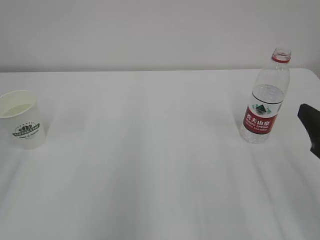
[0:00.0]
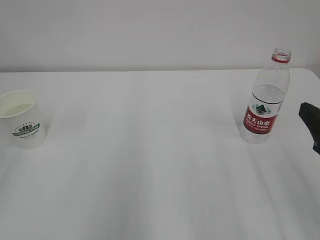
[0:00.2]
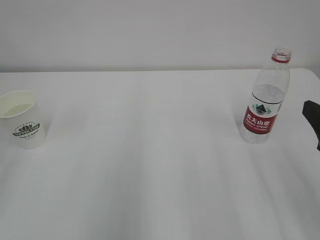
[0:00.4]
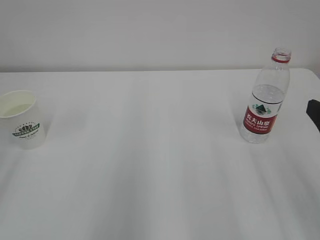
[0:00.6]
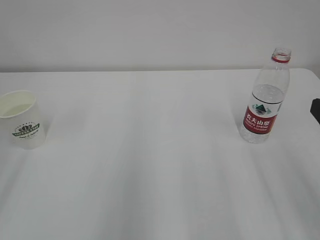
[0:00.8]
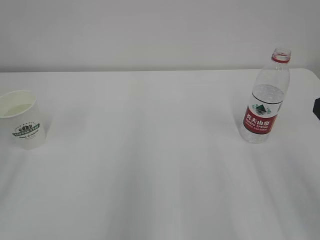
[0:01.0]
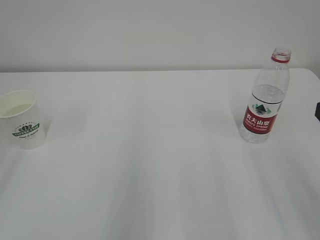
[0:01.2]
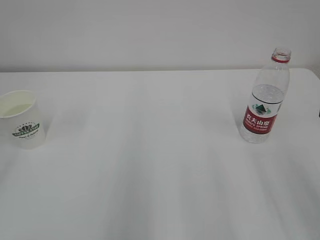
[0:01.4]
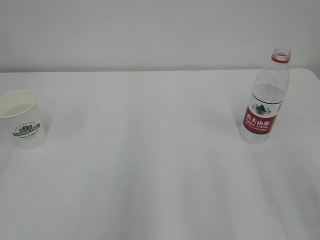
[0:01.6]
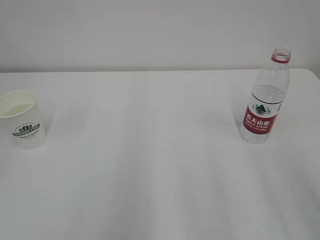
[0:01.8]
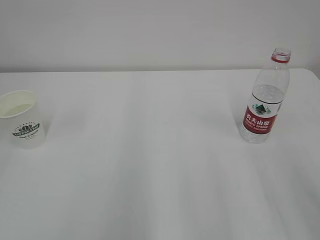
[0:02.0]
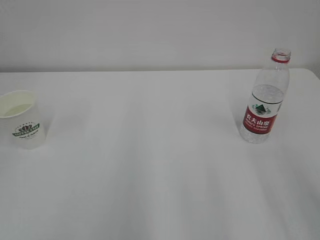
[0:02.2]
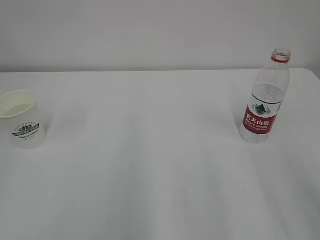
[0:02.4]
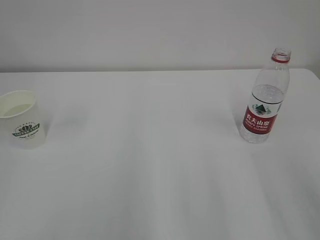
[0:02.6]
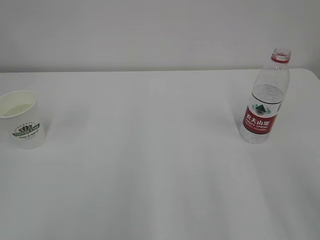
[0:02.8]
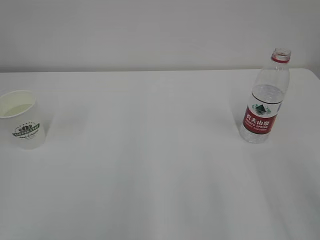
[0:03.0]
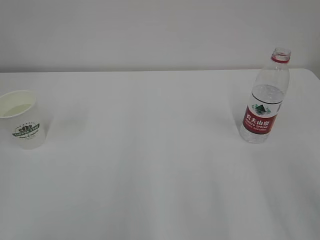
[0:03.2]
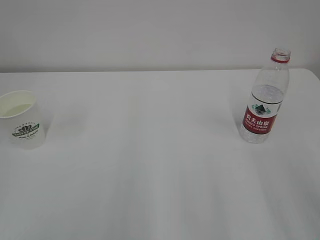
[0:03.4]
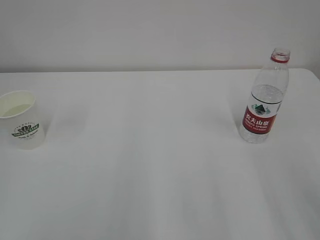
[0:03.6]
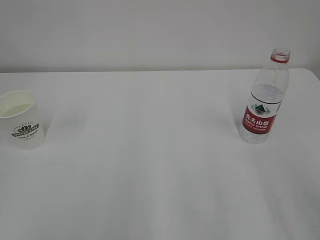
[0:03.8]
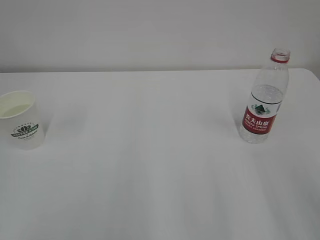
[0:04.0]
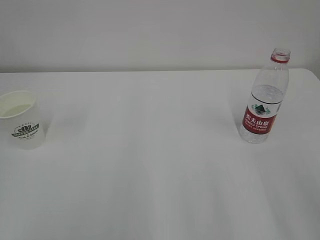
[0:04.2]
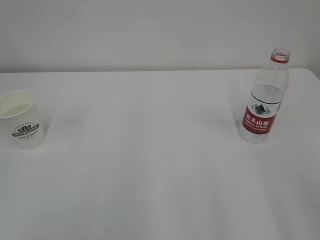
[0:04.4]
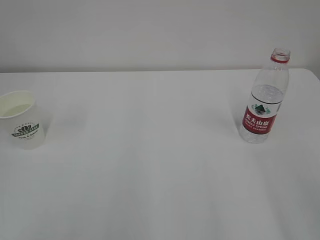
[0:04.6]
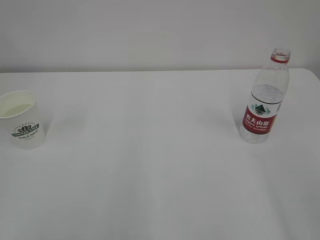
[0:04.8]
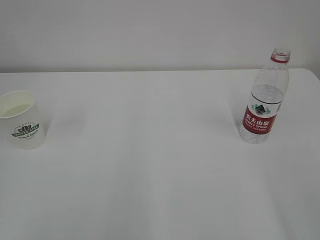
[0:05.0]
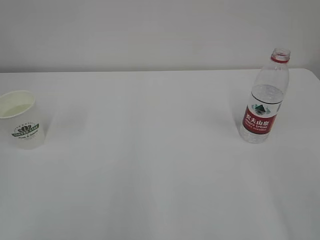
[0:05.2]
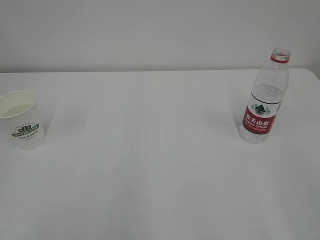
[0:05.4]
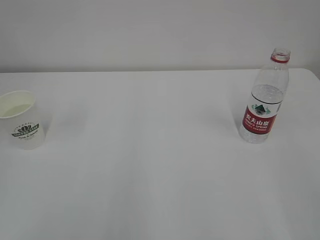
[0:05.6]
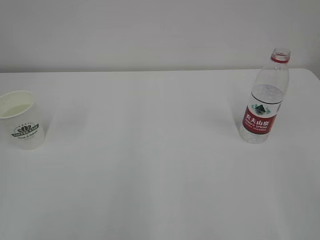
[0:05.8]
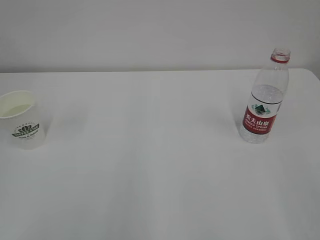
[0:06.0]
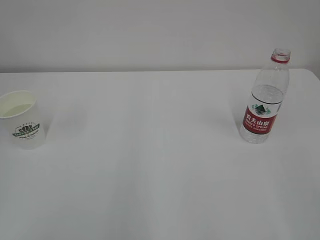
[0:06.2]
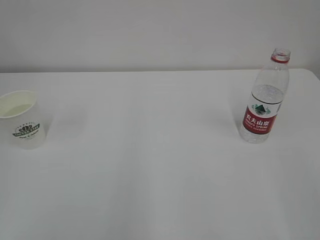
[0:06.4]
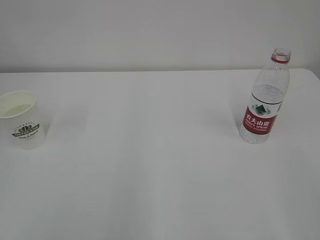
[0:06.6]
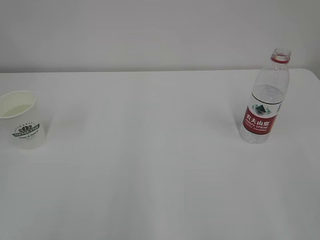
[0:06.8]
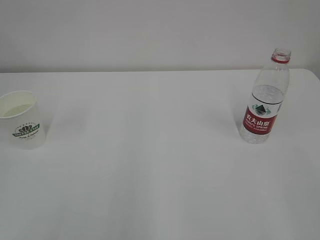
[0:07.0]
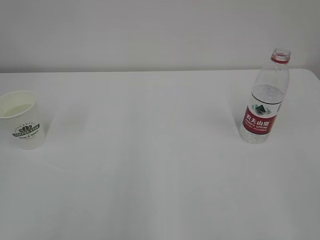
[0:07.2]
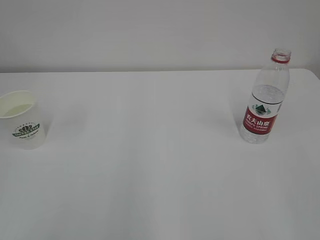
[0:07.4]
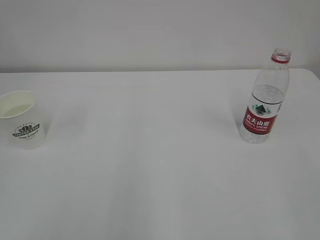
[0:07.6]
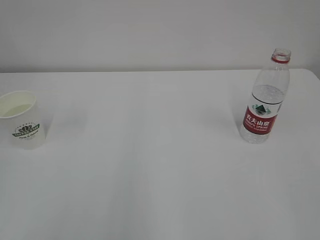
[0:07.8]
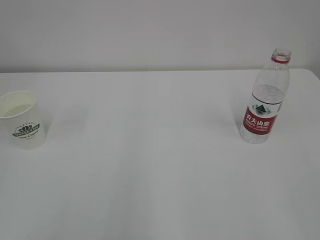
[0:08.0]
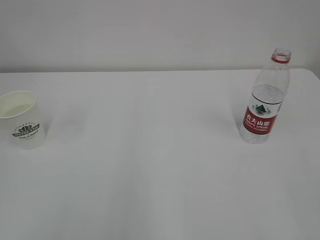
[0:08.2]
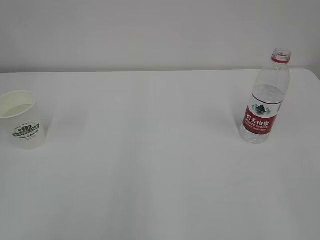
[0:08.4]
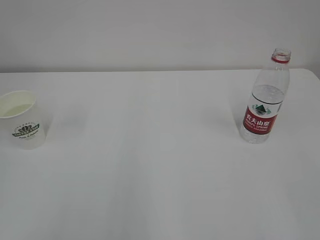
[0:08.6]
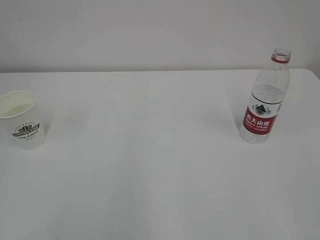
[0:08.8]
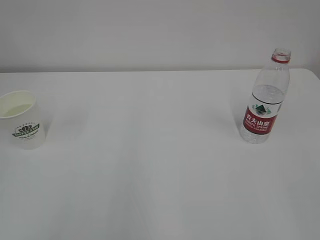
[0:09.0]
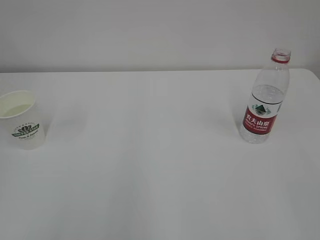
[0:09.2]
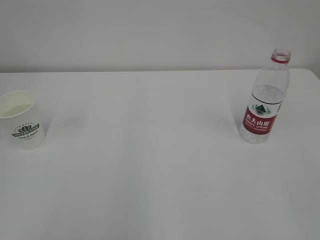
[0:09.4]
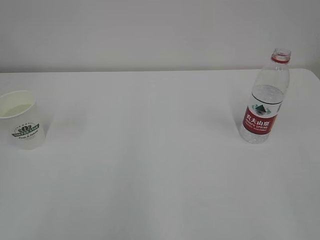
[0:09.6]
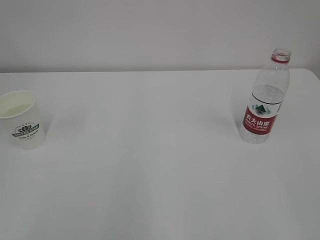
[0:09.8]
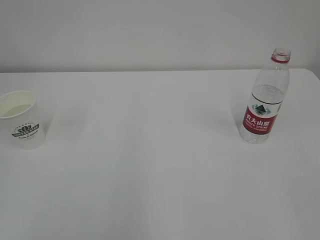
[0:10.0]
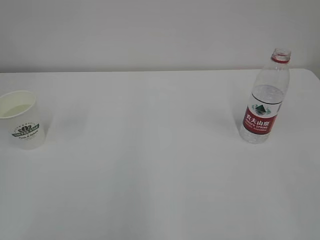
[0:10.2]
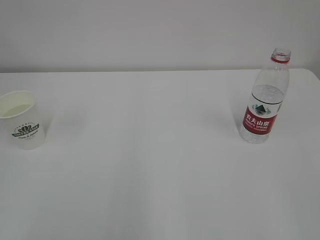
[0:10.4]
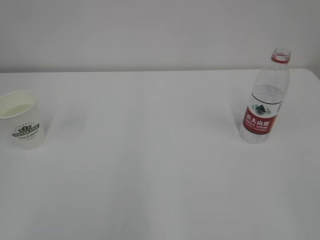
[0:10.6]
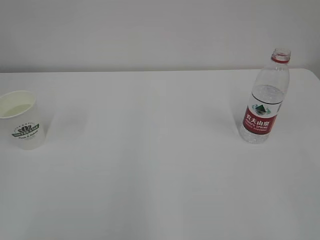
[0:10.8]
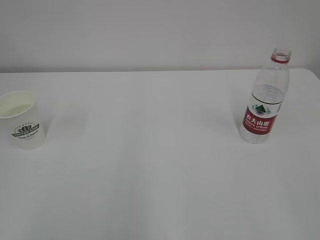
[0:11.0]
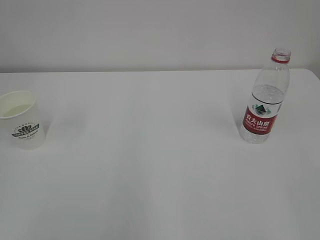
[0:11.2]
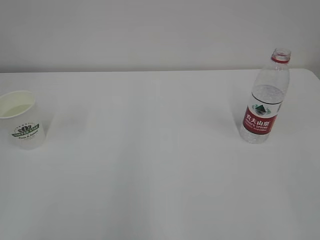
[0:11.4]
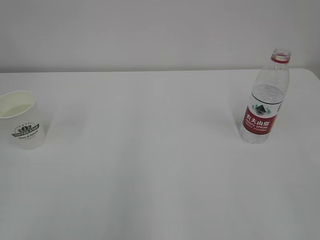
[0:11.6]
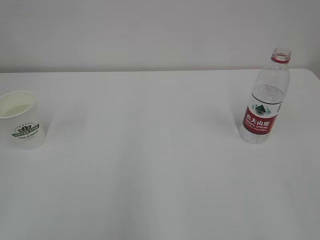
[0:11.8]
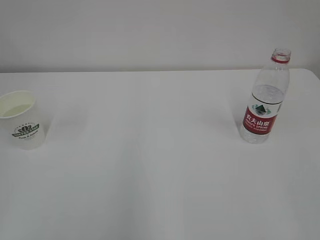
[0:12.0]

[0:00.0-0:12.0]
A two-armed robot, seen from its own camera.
0:00.0 to 0:01.6: The right gripper moves some 5 cm.
0:07.6 to 0:09.0: Both grippers stay about where they are.

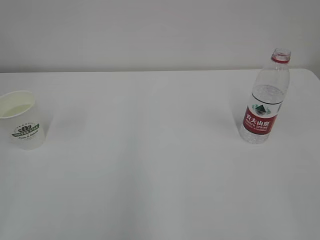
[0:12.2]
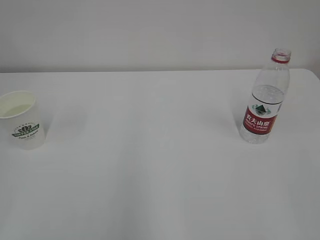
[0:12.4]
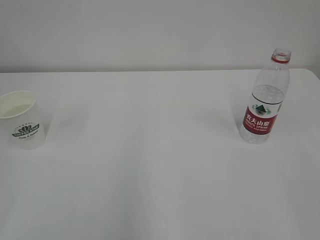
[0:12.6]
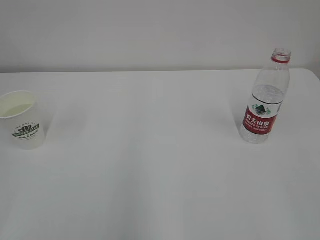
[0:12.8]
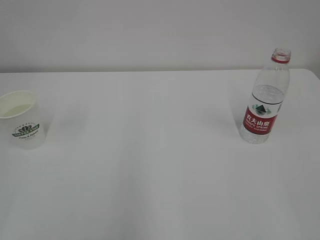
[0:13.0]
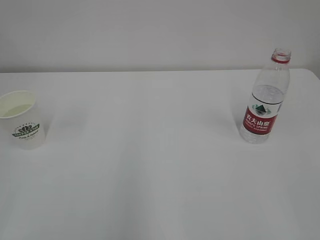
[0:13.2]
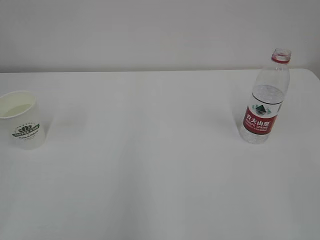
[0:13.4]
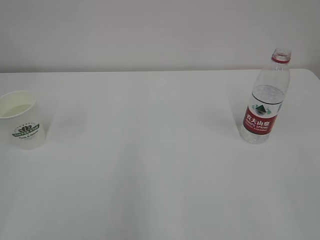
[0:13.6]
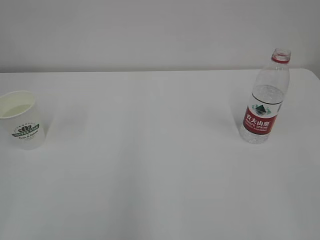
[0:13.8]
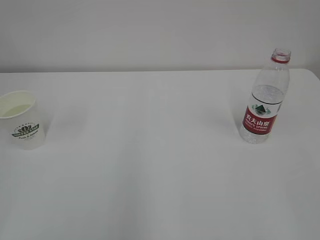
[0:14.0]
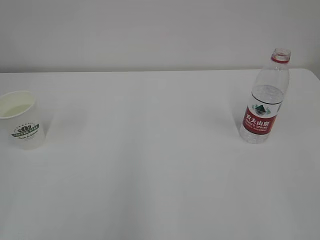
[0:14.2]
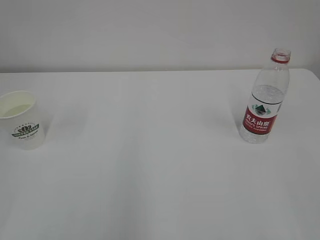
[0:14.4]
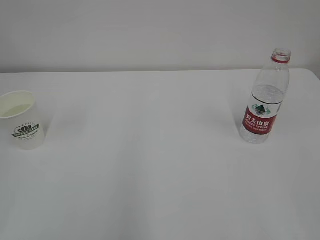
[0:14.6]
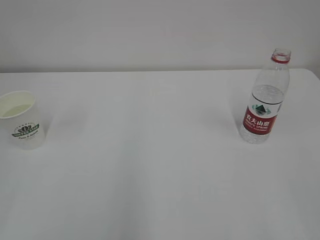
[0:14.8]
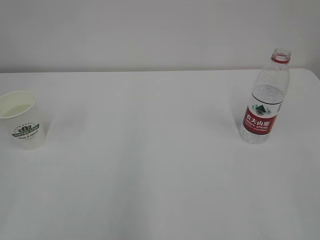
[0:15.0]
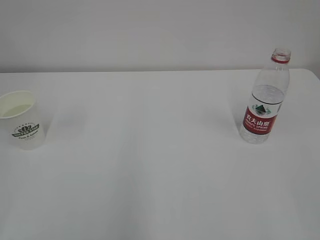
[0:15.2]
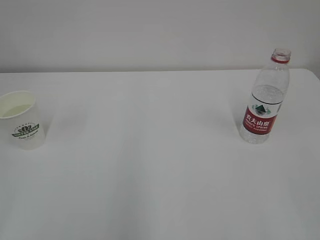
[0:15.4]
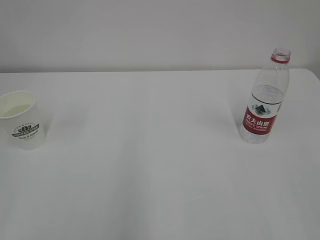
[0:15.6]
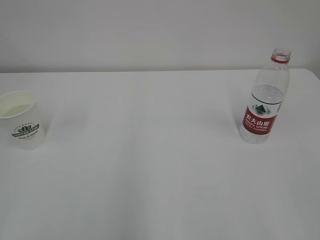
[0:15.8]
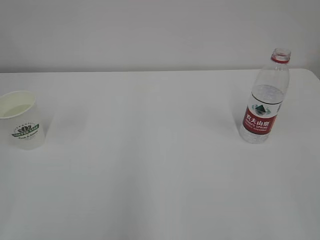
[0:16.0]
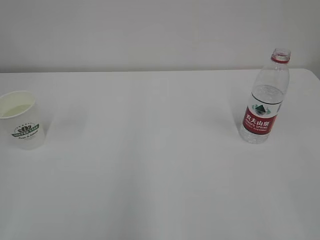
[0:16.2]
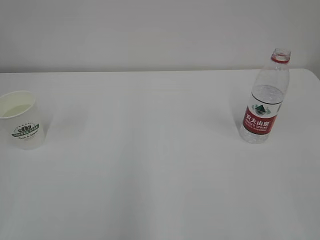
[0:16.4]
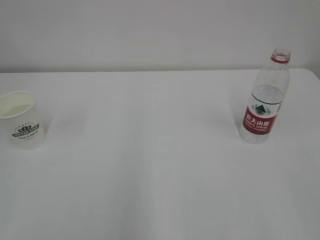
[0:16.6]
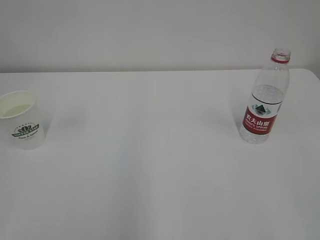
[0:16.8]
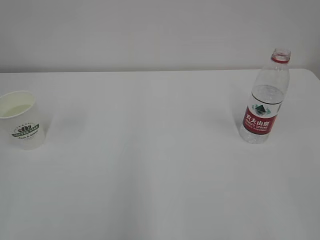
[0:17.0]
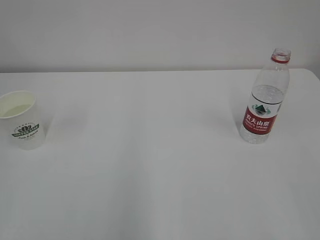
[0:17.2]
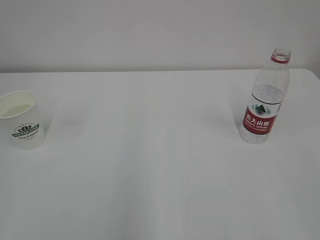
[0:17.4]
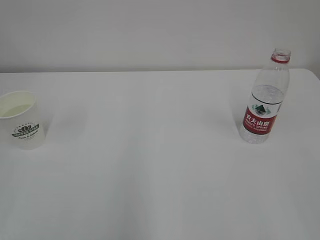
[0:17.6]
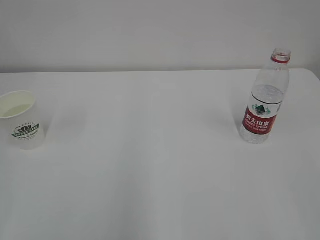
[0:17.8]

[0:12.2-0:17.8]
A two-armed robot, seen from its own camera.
0:12.2 to 0:13.6: Both grippers stay put.
0:15.0 to 0:16.4: Both grippers stay put.

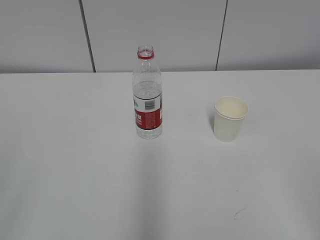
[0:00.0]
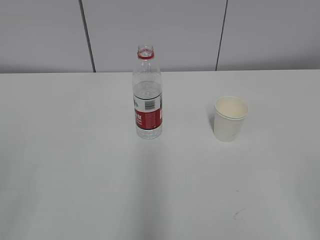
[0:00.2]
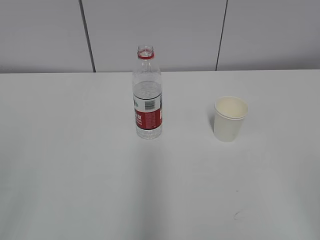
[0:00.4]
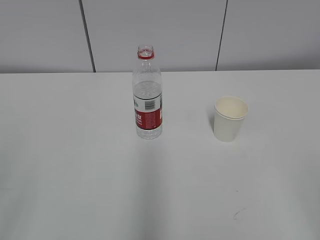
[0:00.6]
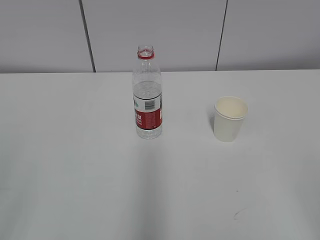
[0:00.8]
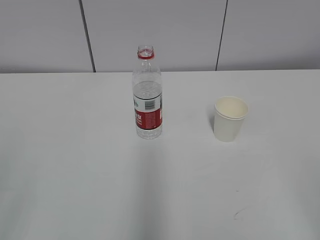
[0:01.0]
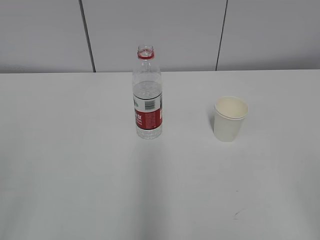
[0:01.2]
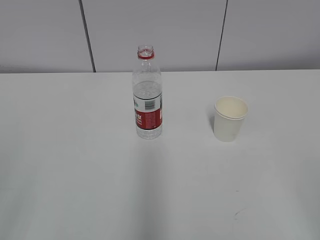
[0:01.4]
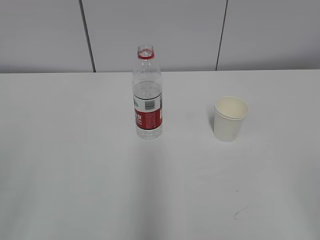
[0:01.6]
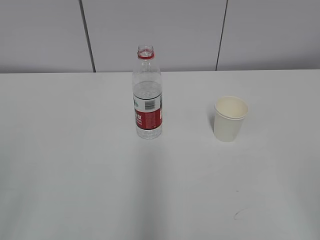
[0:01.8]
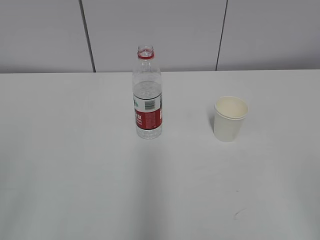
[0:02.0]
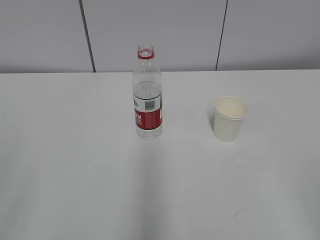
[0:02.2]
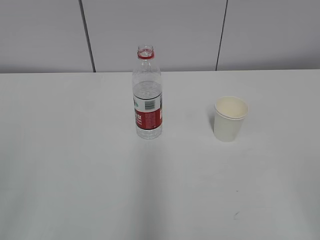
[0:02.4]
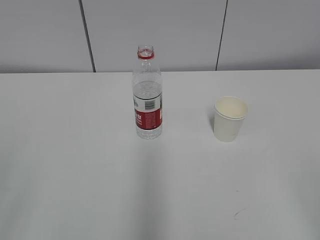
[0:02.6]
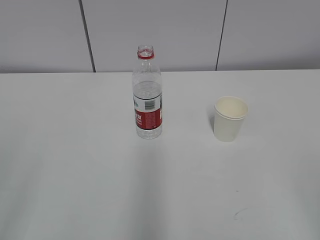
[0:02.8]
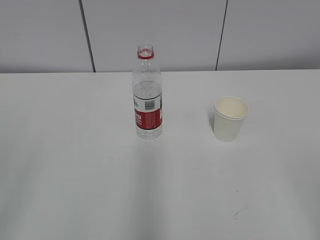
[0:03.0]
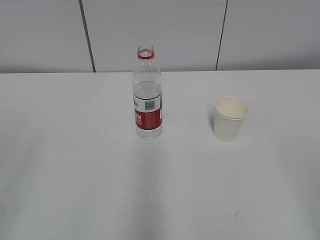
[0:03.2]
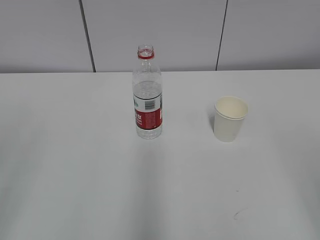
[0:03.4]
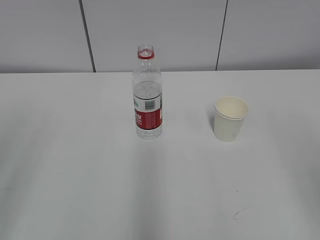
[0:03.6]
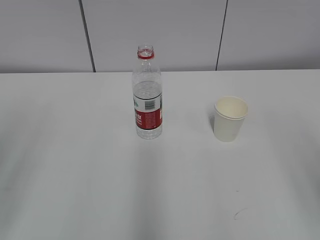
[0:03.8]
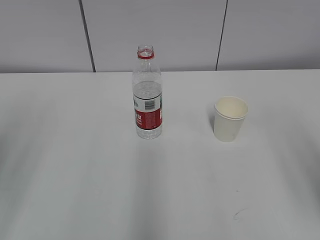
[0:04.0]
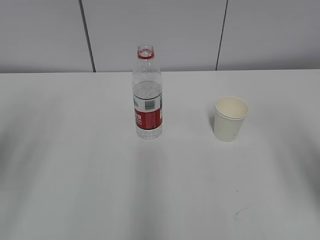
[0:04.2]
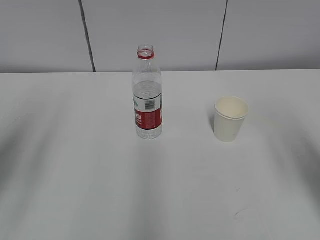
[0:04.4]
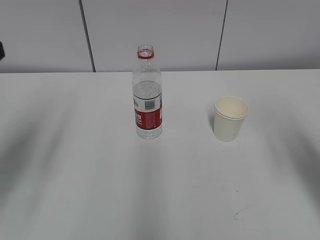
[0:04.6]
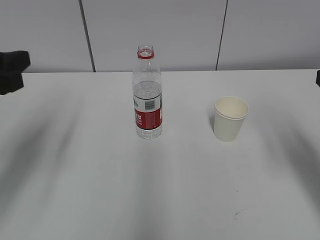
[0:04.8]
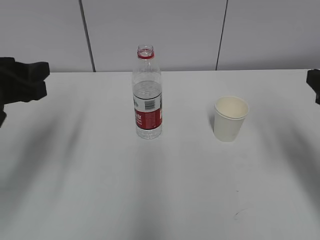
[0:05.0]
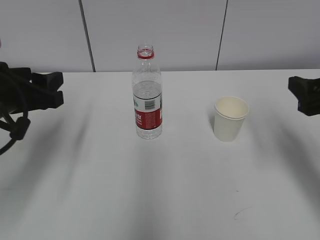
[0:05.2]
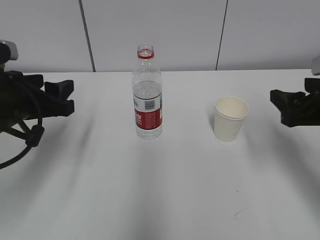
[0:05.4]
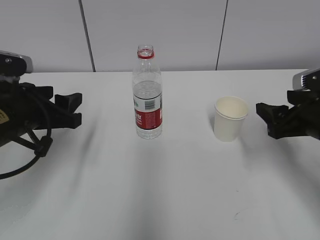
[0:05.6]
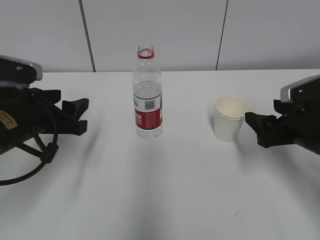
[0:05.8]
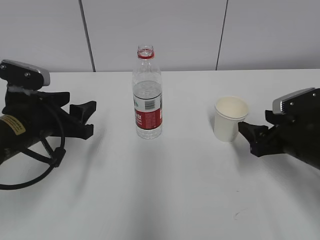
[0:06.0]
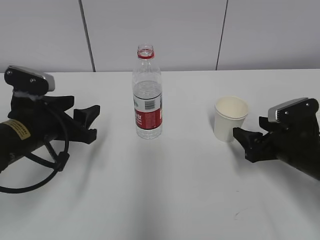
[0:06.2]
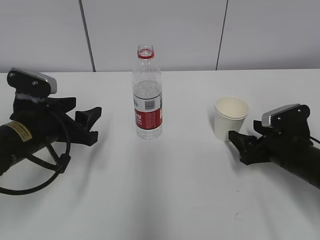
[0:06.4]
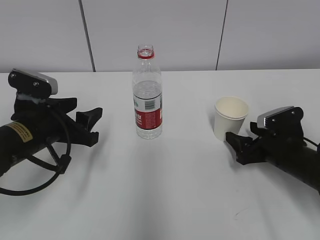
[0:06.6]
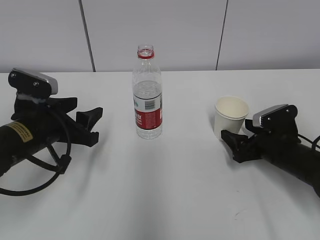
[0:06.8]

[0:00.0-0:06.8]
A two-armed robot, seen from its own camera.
Step, 0:00.0 to 0:06.4: Grab the paper cup with the right hand.
0:01.4 to 0:02.8: Both grippers stay put.
0:04.0 to 0:05.4: The left gripper goes some 20 cm forward, downward and to the right. The right gripper heads forward and downward, covering approximately 20 cm.
0:05.4 to 0:06.8: The right gripper is displaced downward and forward by roughly 15 cm; the left gripper heads downward, covering about 5 cm.
